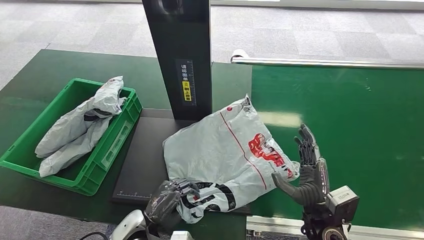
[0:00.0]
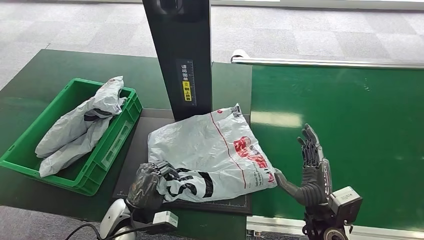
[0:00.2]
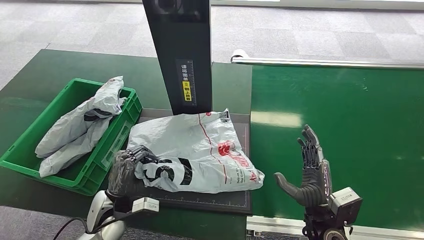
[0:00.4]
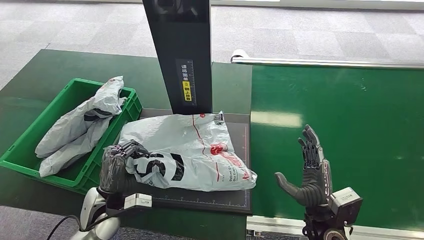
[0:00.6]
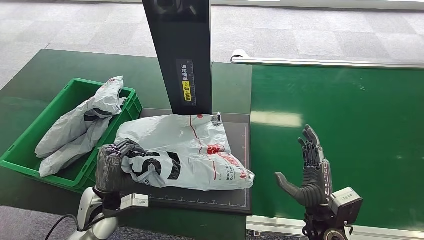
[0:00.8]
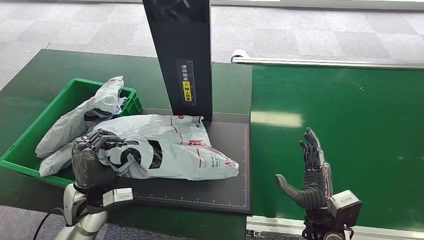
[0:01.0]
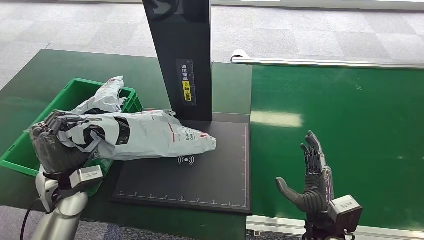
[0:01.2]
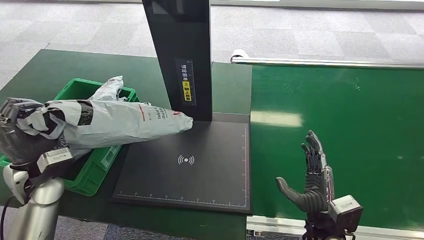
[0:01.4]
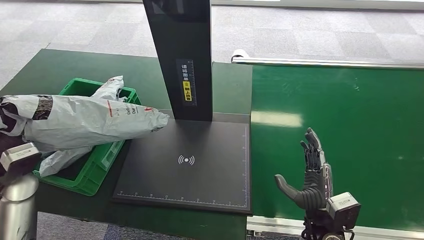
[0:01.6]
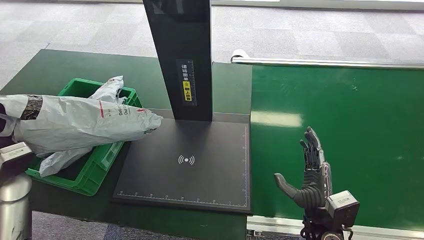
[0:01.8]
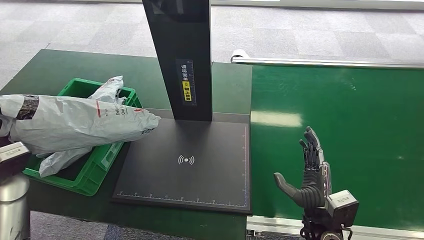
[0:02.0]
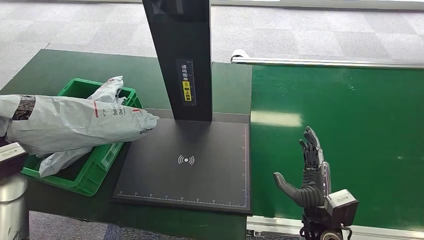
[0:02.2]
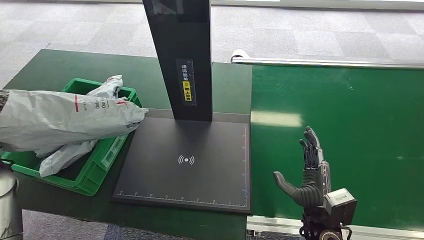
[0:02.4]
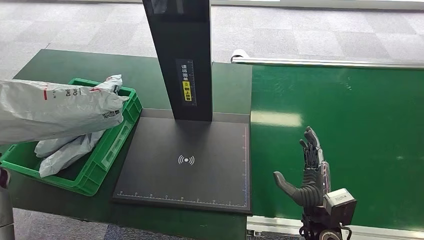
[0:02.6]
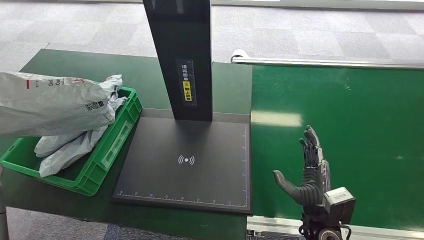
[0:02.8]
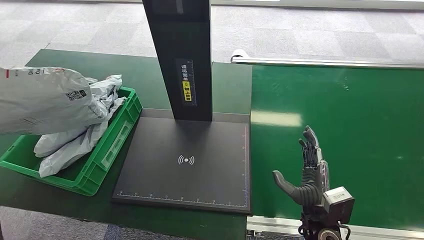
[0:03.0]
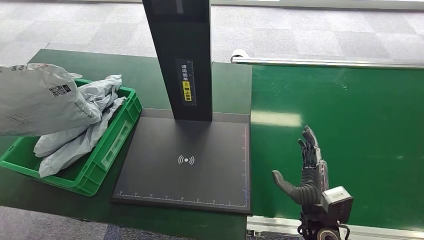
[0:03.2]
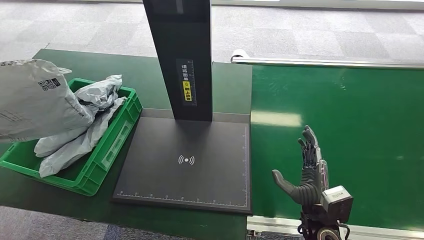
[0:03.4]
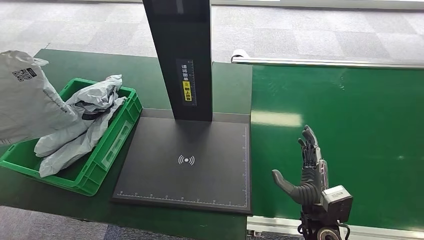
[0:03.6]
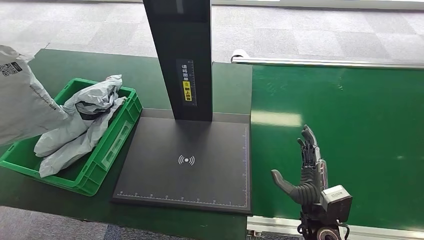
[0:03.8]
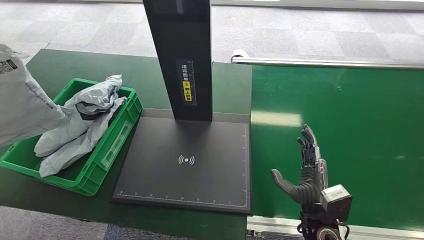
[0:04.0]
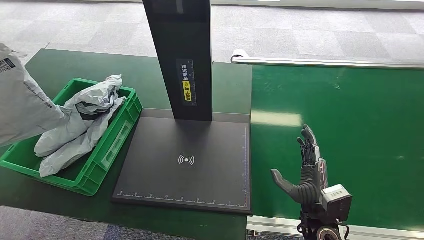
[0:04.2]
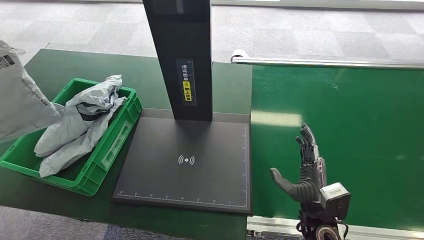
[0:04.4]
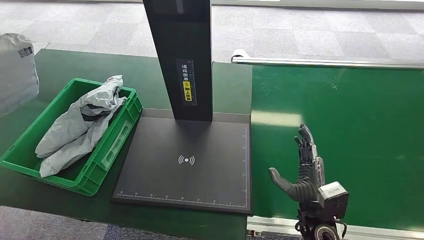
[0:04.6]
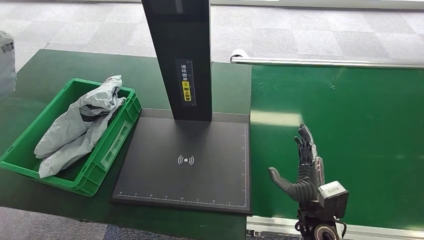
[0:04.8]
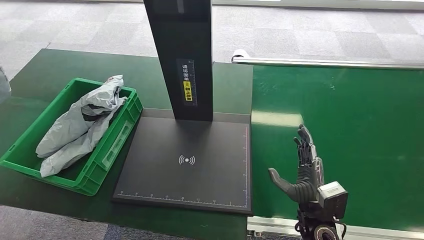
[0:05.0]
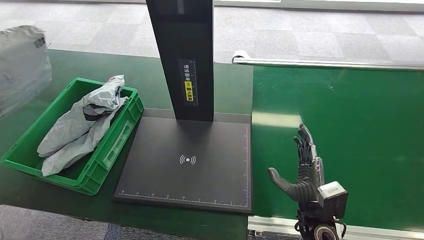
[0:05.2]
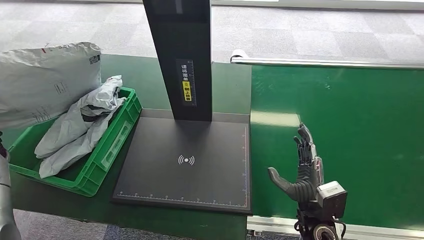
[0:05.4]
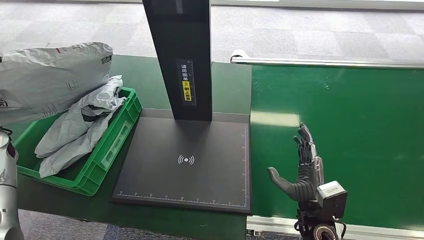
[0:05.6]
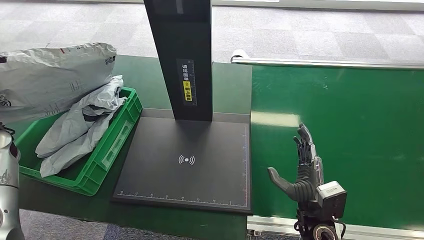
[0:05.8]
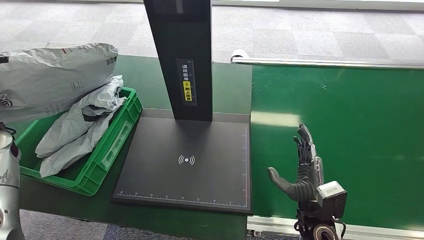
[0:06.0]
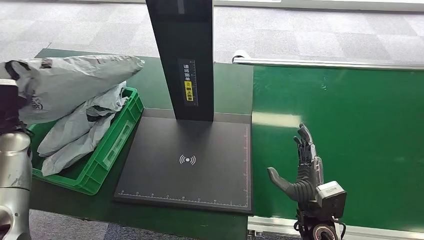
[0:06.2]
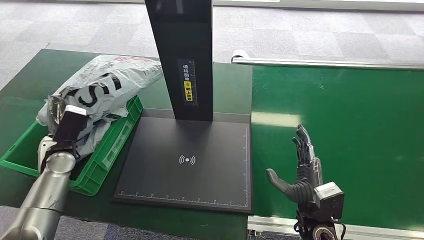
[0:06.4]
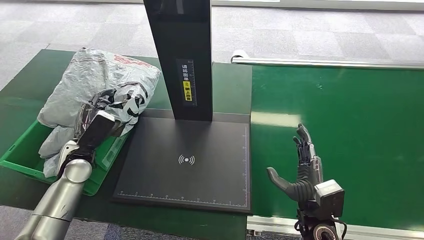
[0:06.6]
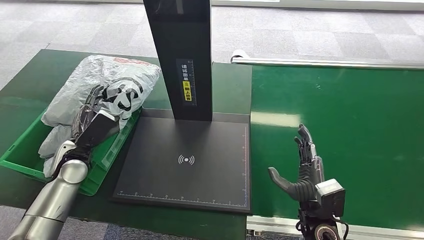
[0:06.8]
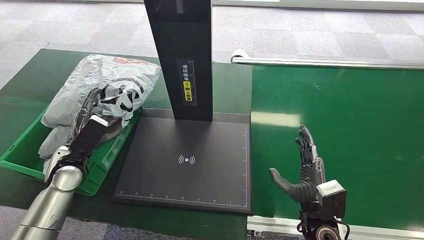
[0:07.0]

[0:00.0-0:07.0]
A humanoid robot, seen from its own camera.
Step, 0:01.6 to 0:07.0: Place the package into the parcel locker.
0:01.4 to 0:02.8: The left hand travels to the left by approximately 15 cm.
0:02.8 to 0:04.2: The left hand travels to the left by approximately 10 cm.
0:04.2 to 0:05.6: The left hand goes roughly 10 cm to the right and forward.
0:05.6 to 0:07.0: The left hand shifts some 20 cm to the right and downward.
